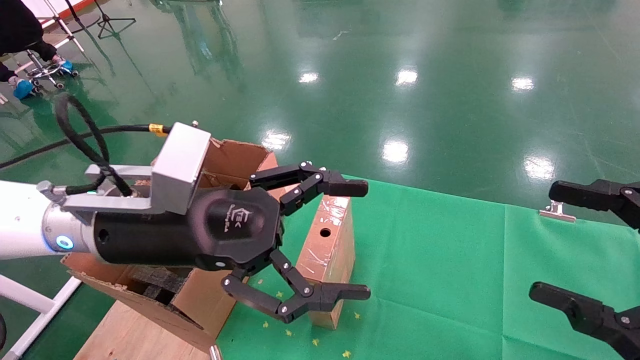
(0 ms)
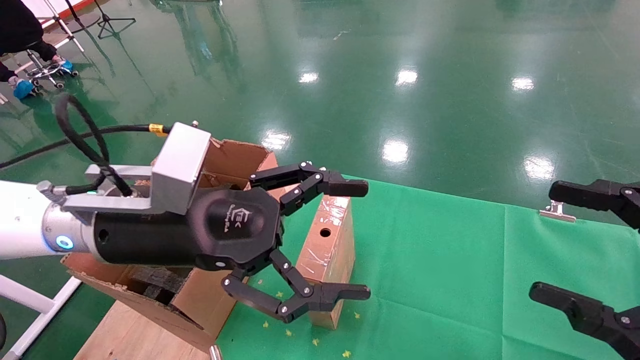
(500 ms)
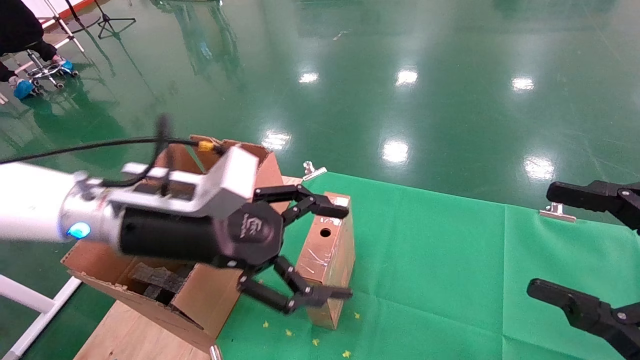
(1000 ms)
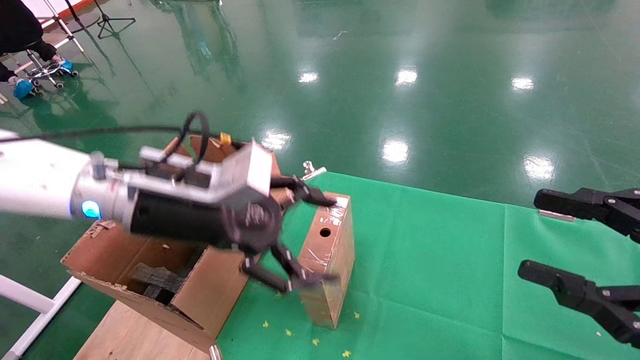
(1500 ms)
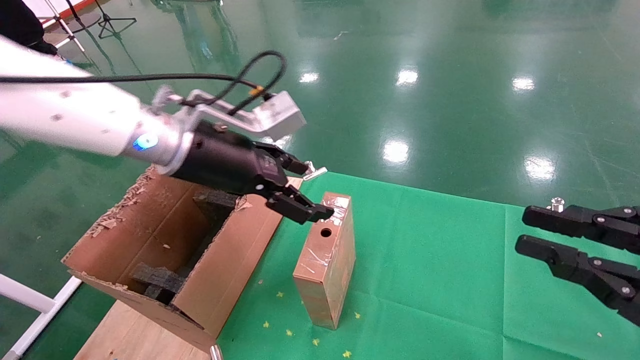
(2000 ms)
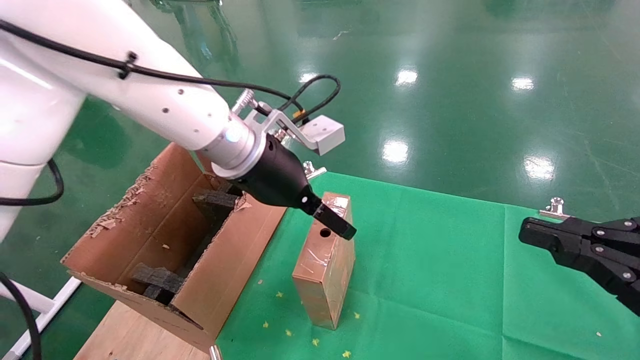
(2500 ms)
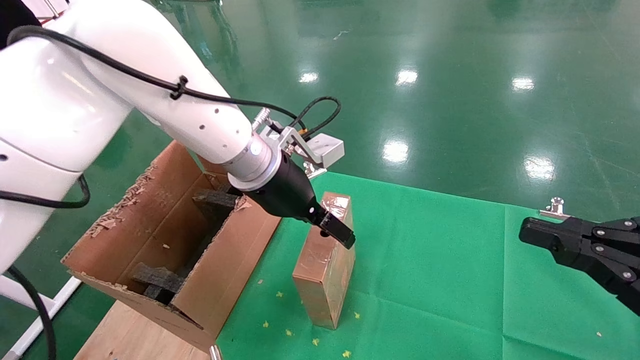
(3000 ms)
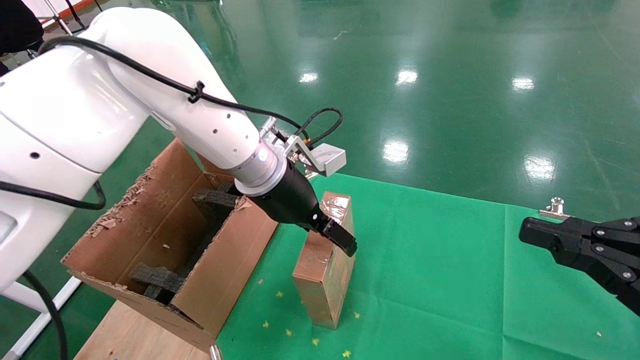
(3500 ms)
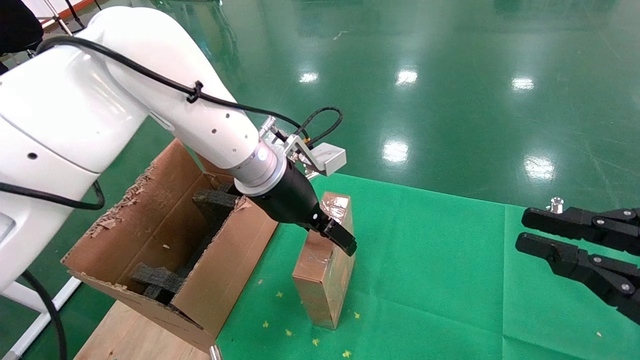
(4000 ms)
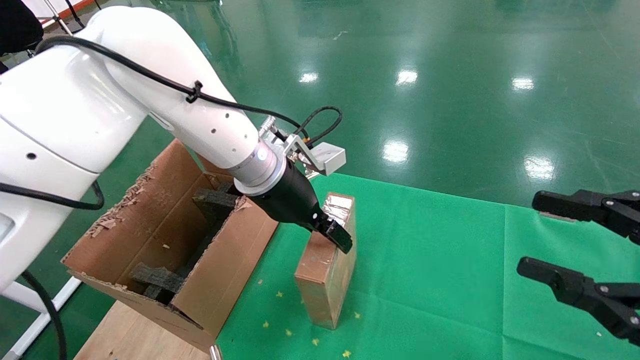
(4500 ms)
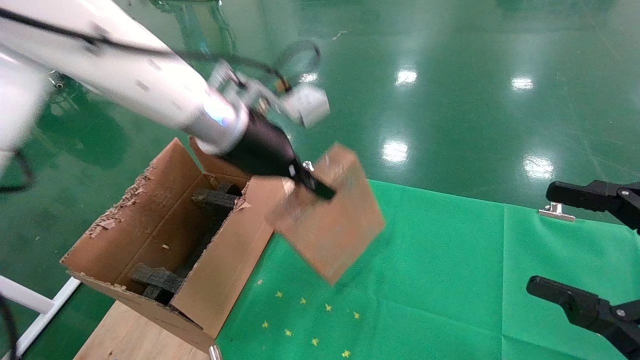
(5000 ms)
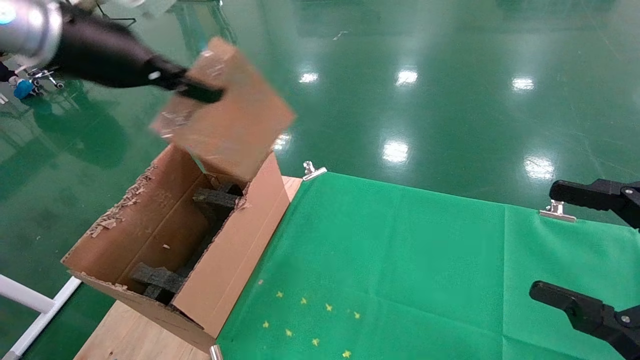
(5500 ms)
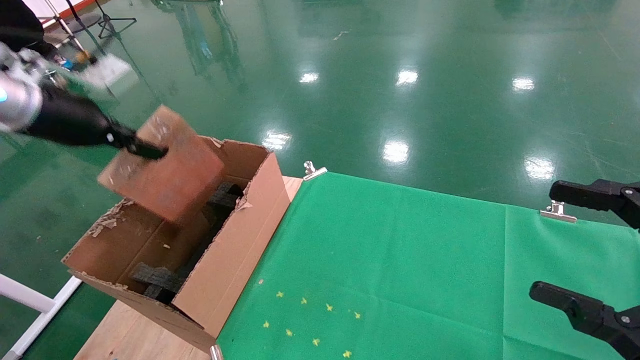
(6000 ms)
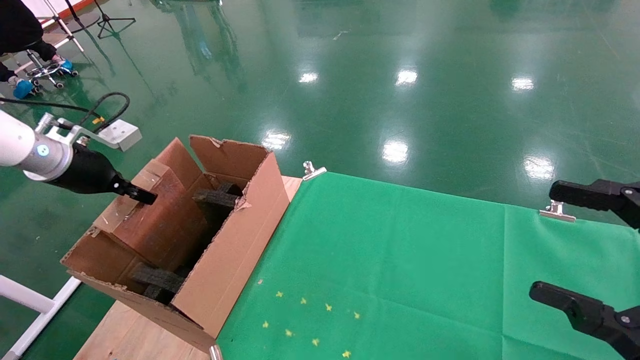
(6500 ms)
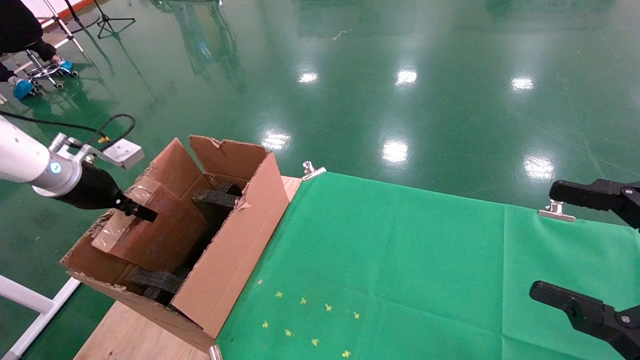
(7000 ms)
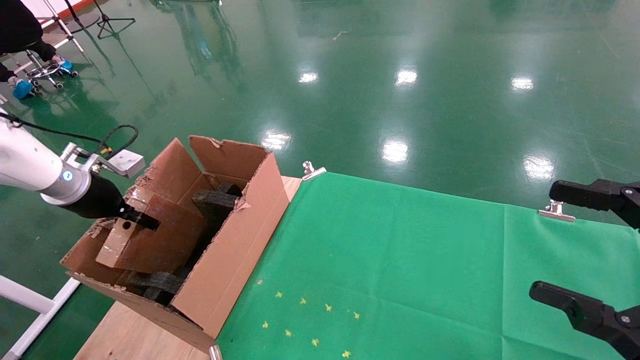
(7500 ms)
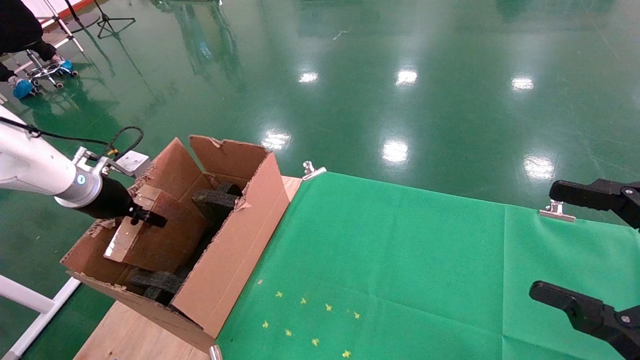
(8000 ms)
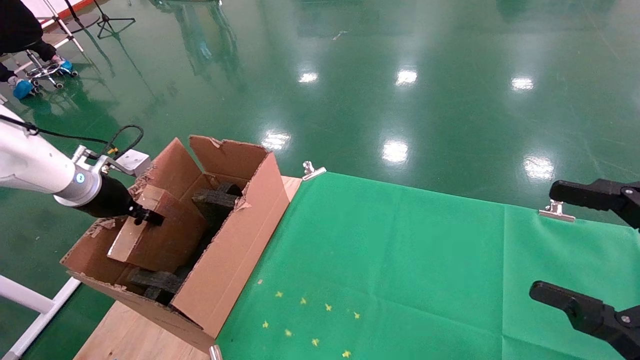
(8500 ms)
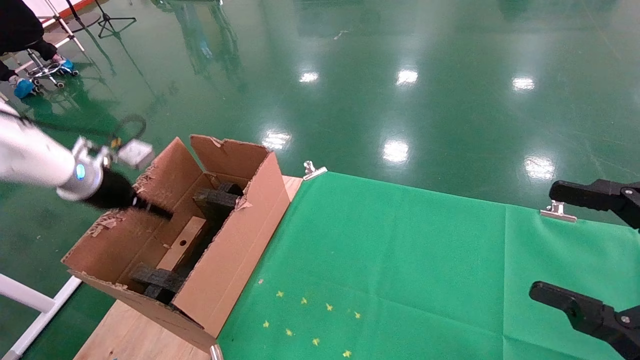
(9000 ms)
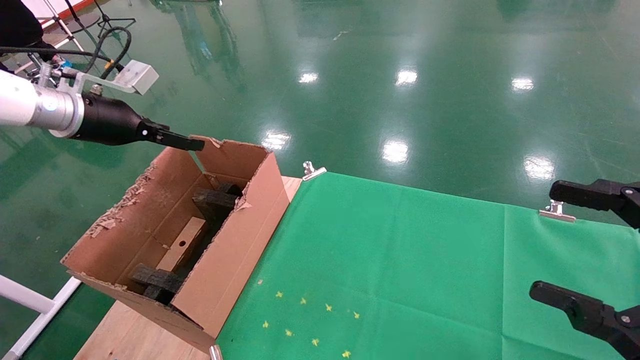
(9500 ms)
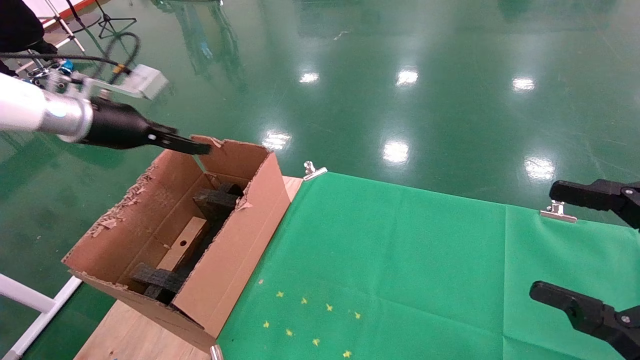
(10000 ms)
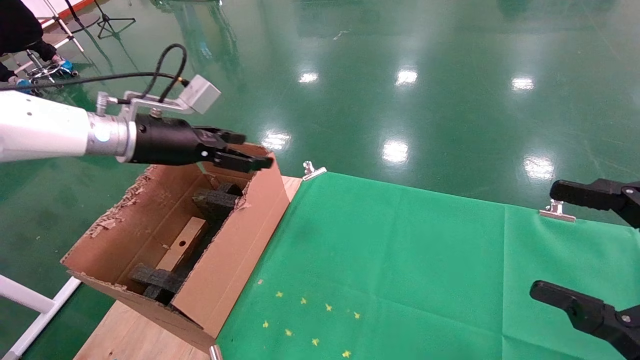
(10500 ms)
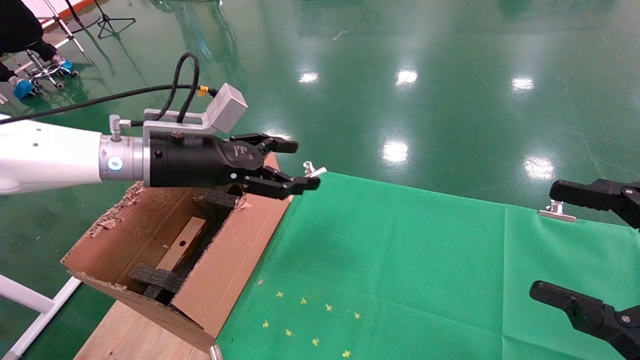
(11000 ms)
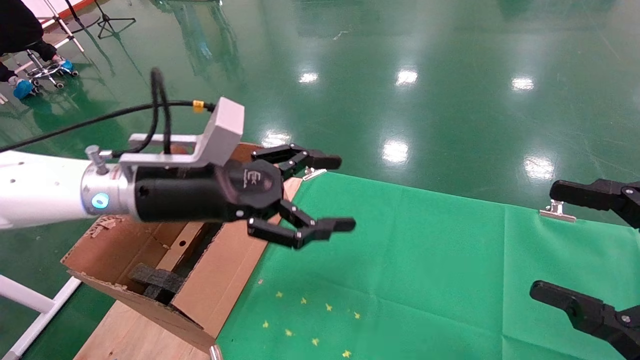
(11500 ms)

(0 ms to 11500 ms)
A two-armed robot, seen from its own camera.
Task of the whole recording: using a robotic arm to pick up a cardboard box and palace it the carton.
Step, 1500 ms - 4500 ms: Pick up the mouse and the power cord paper box.
Step, 5000 ms - 8500 ms: Place the mouse and the power cord paper box into the container.
0 ms - 2000 ms: The left gripper travels forward by roughly 10 cm. The right gripper closes.
2000 ms - 4000 ms: The left gripper moves to the right and forward, some 10 cm.
4000 ms - 6000 ms: The right gripper opens. Meanwhile the left gripper is displaced to the left by roughly 30 cm, and closes.
6000 ms - 7500 ms: The left gripper shifts roughly 15 cm downward and to the left.
7500 ms - 9500 ms: The left gripper is displaced upward by approximately 10 cm, and opens up.
9500 ms - 11500 ms: The left gripper shifts roughly 20 cm to the right.

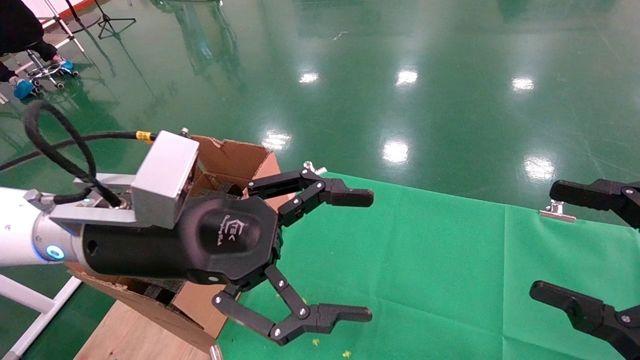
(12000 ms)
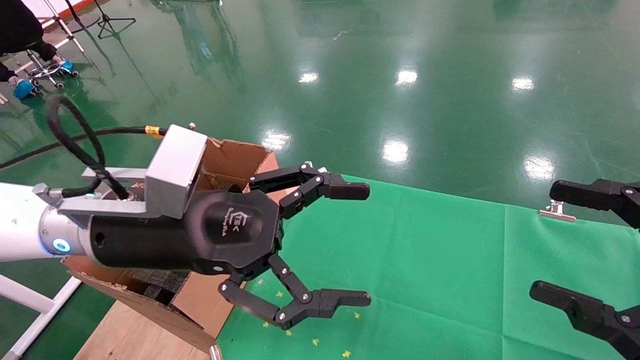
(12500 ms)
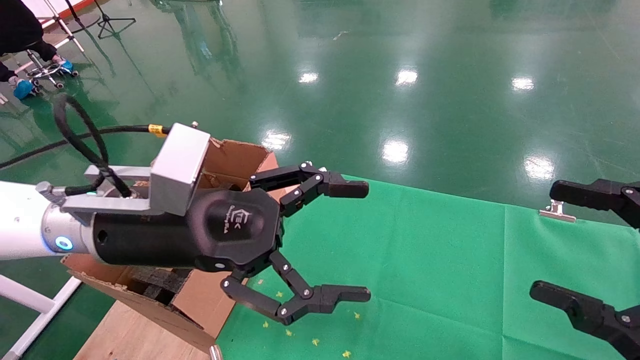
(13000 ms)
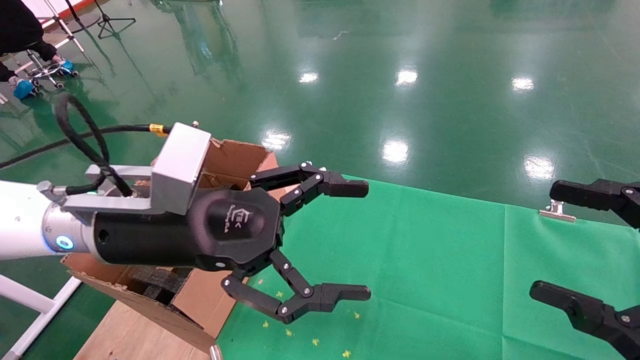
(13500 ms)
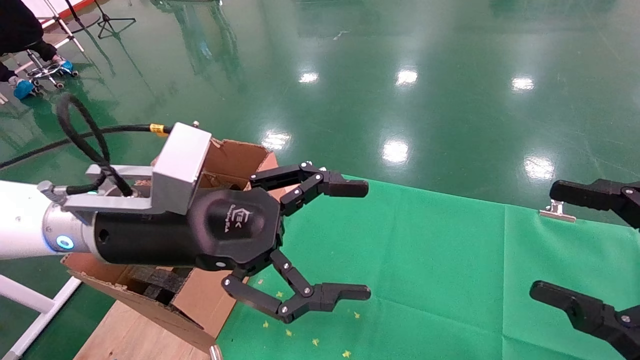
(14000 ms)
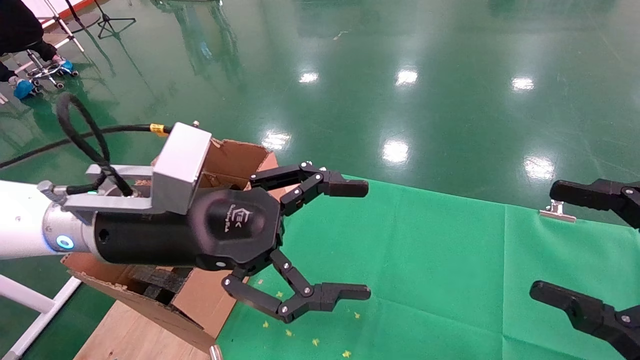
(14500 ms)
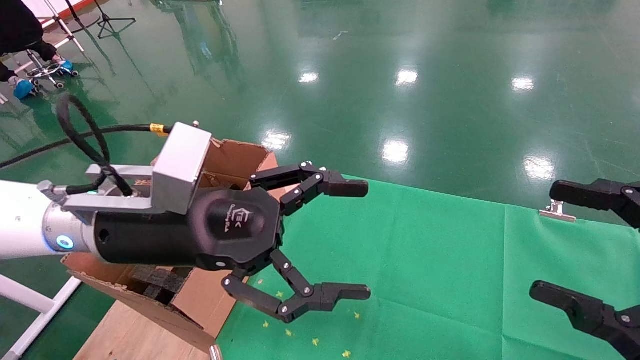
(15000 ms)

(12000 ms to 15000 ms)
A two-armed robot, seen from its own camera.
Task of the whole recording: using a robotic arm to pick up a cardboard box and palace it the carton.
12000 ms - 15000 ms: The two grippers keep their place.
